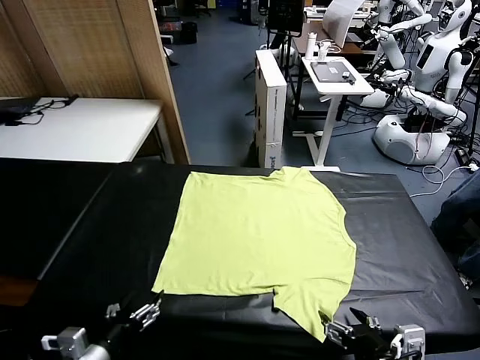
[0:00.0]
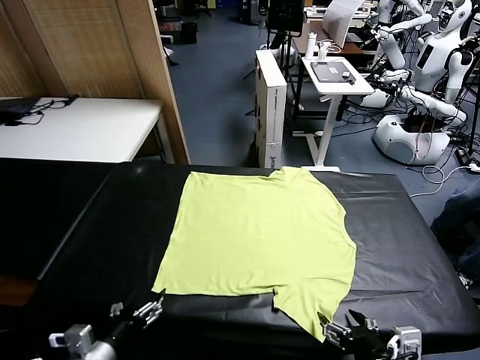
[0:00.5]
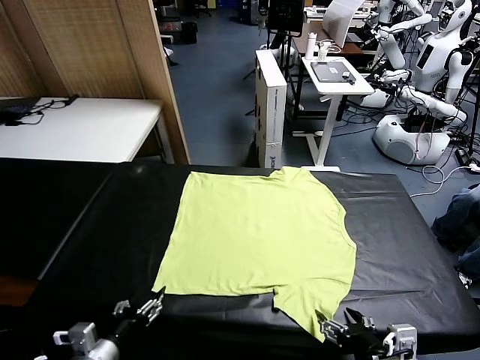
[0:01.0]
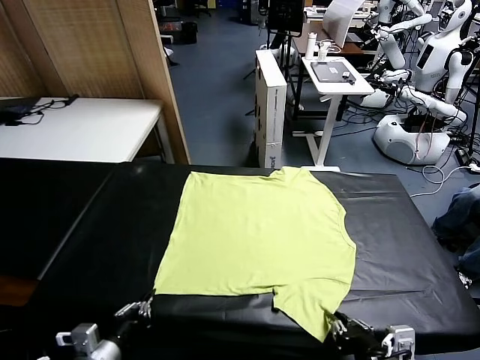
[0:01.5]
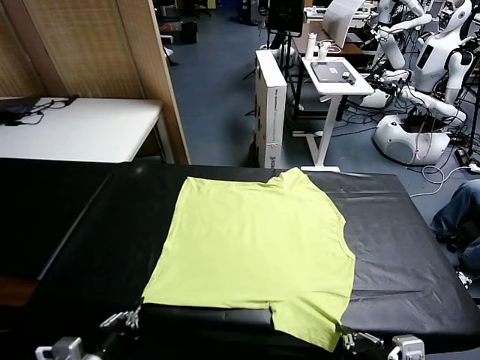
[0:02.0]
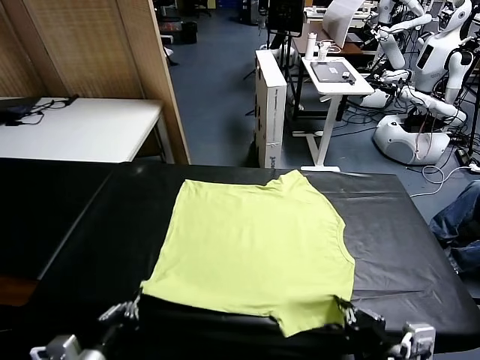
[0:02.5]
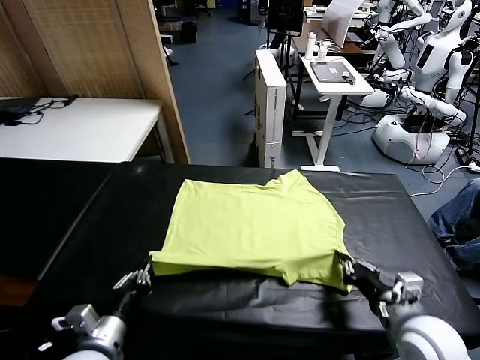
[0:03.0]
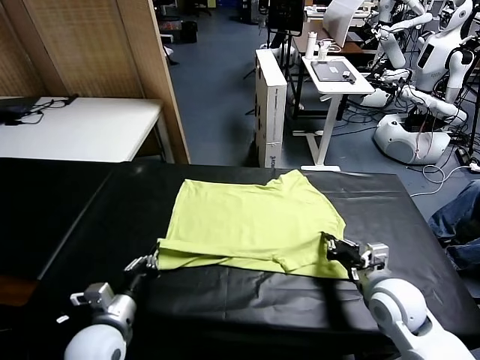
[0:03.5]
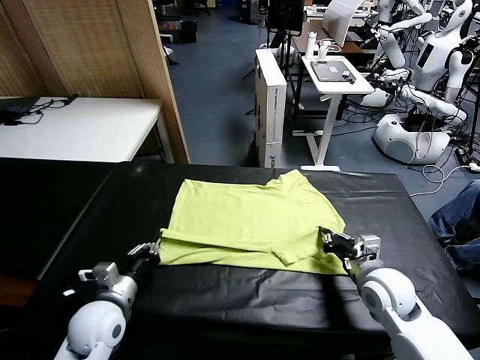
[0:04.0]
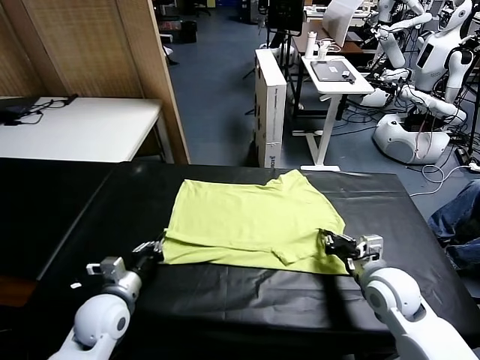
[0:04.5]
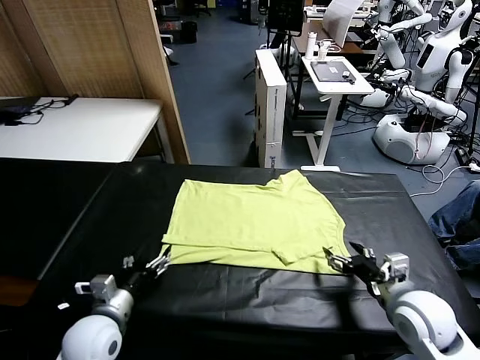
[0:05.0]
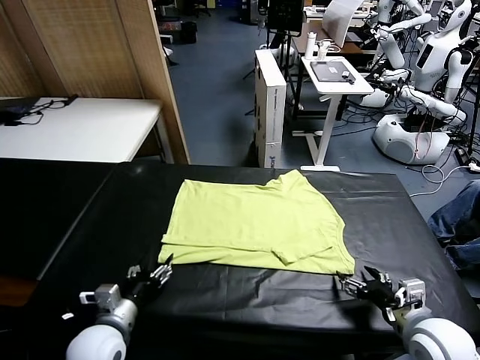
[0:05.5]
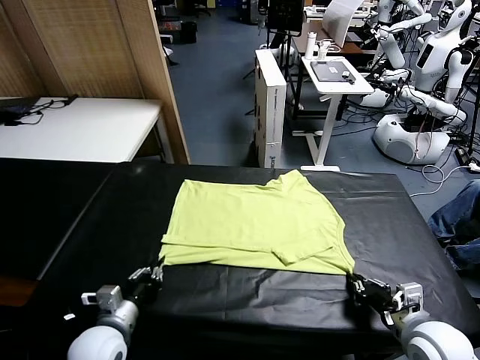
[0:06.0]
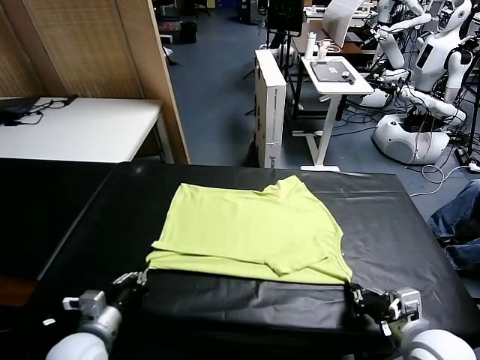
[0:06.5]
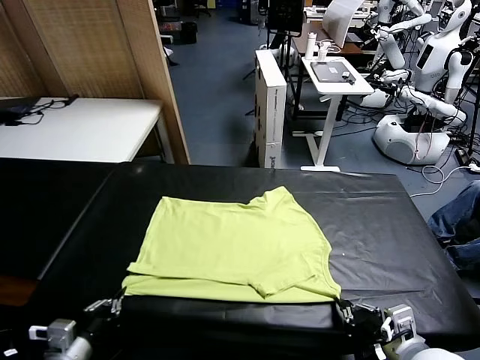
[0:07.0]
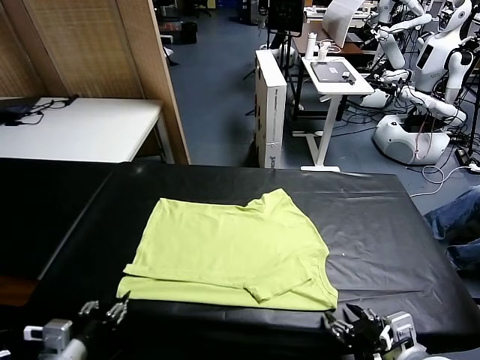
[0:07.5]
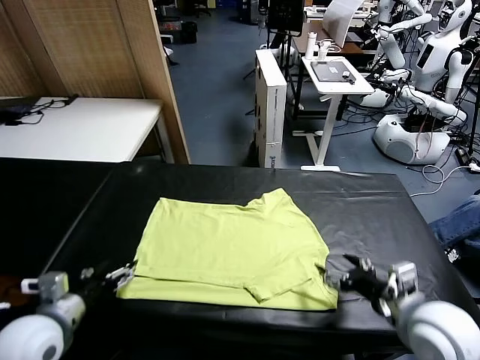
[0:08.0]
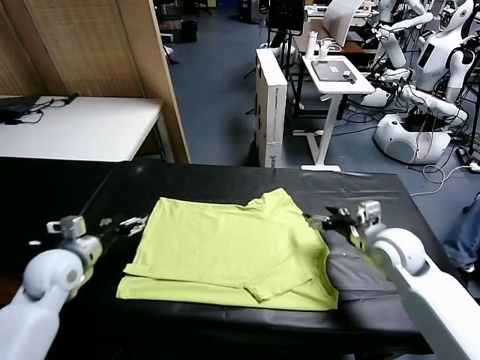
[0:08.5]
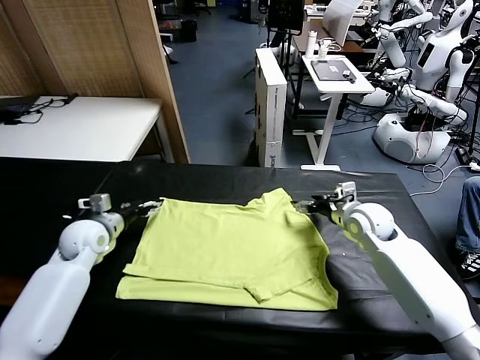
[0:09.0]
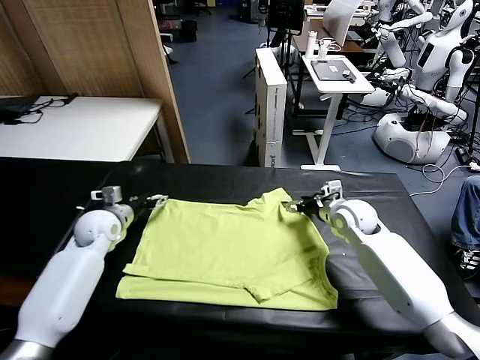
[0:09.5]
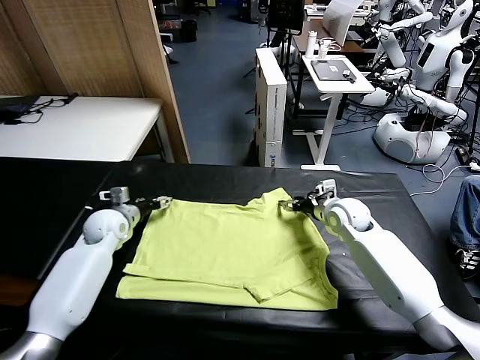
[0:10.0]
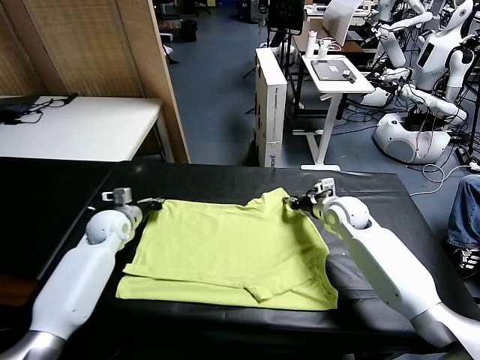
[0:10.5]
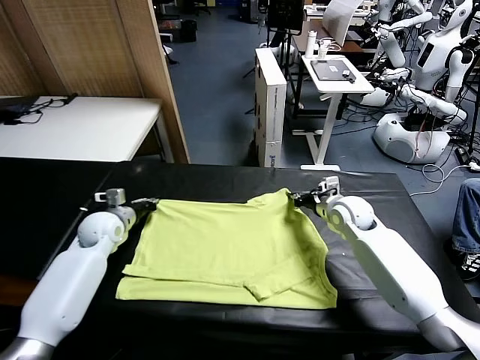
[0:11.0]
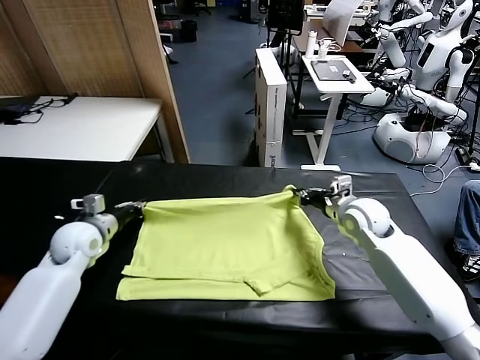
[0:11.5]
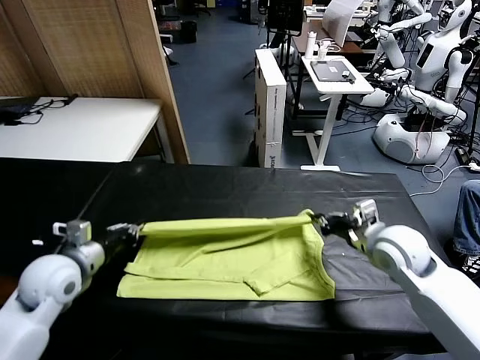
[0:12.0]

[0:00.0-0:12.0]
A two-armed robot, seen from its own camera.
Task of the whole recording: fold and organize the clothes.
Step, 0:00.0 to 0:01.5: use both grippers simultaneously to clamp the lower edge of the clothing fabric.
Step, 0:02.0 to 0:04.5: use both grippers to drag the lower edge of the fabric forward and fold it over the upper edge.
Step, 0:05.0 to 0:07.5: Drag the clothes downward with both gripper.
Step, 0:08.0 to 0:10.5: use both grippers simultaneously to clamp the upper edge of the clothing fabric.
0:02.0 to 0:04.0: The left gripper shifts roughly 15 cm forward. Meanwhile the right gripper is displaced forward by some 20 cm.
0:04.0 to 0:06.0: The right gripper moves backward, approximately 10 cm, and opens, then closes again. The left gripper opens, then closes once more.
0:06.0 to 0:08.0: The left gripper travels upward and to the left by approximately 10 cm, and opens its fingers, while the right gripper heads forward and upward, covering some 10 cm, and opens its fingers.
0:08.0 to 0:10.0: The two grippers go about 25 cm forward.
0:10.0 to 0:12.0: The left gripper is displaced backward and upward by approximately 15 cm, and closes its fingers. Meanwhile the right gripper shifts roughly 15 cm backward, and closes its fingers.

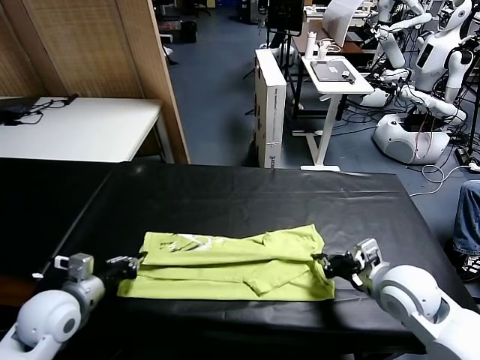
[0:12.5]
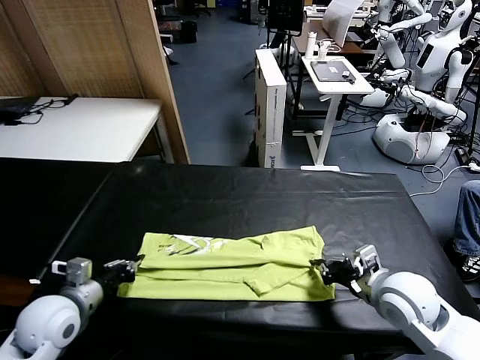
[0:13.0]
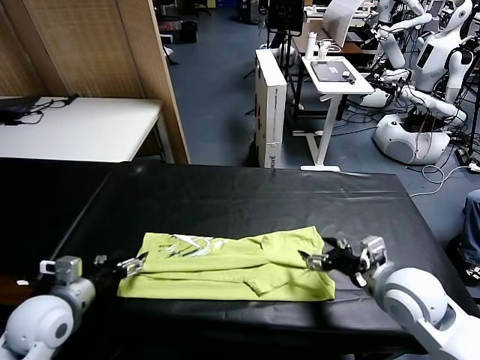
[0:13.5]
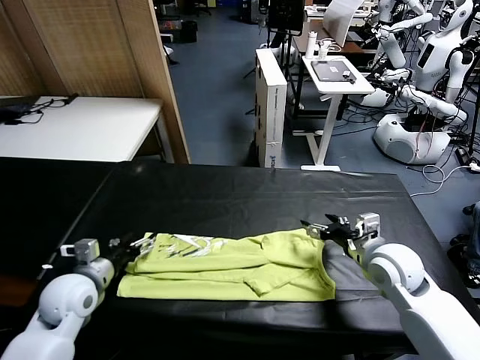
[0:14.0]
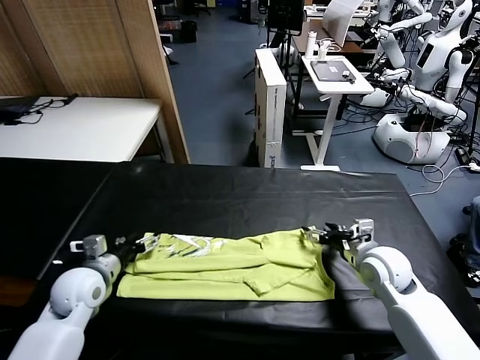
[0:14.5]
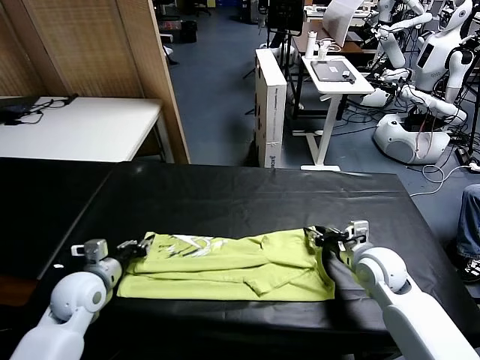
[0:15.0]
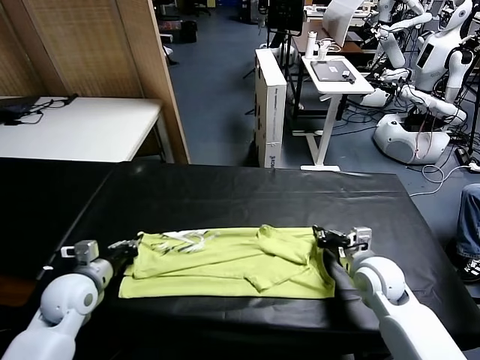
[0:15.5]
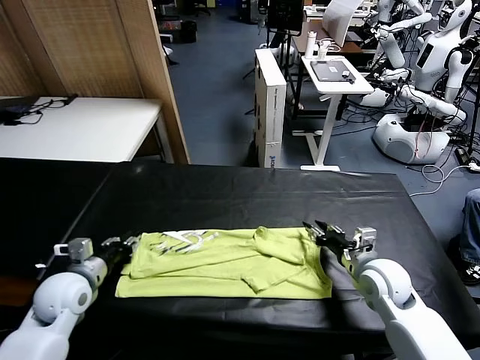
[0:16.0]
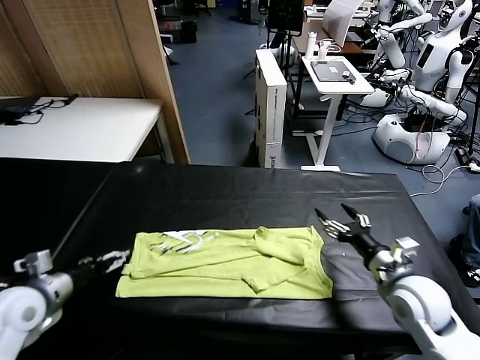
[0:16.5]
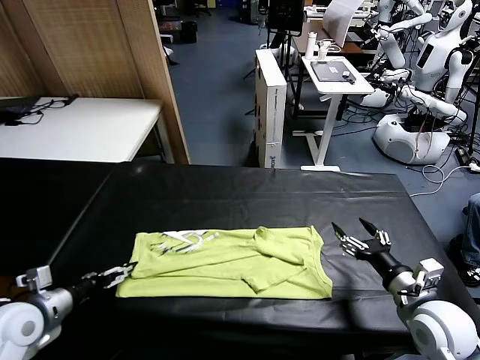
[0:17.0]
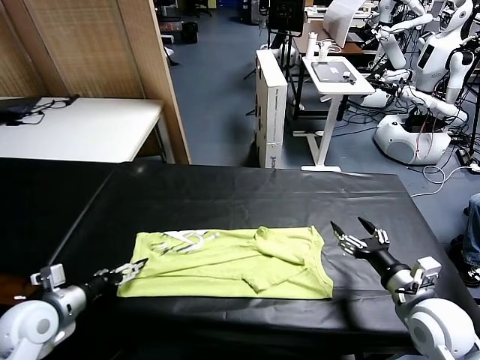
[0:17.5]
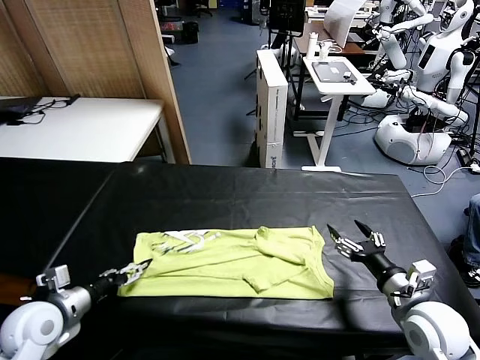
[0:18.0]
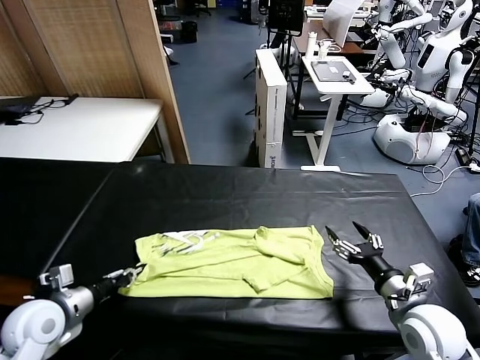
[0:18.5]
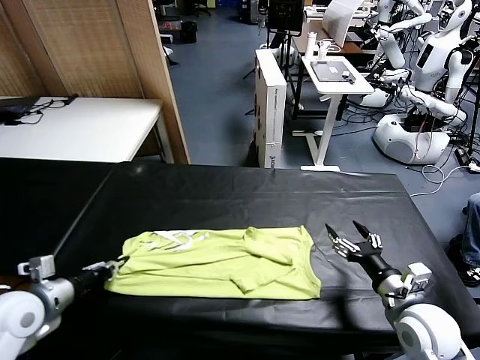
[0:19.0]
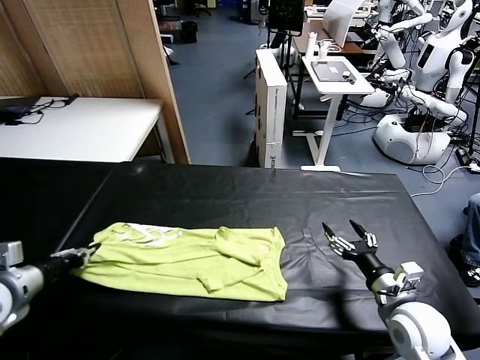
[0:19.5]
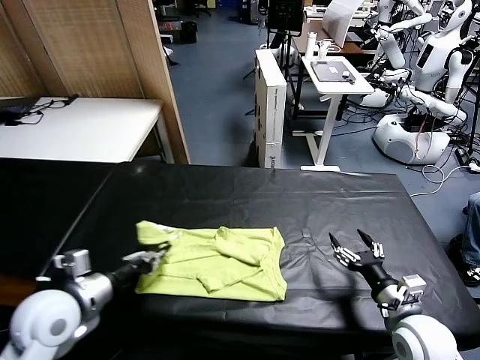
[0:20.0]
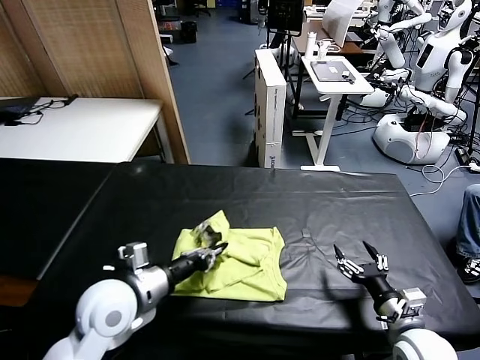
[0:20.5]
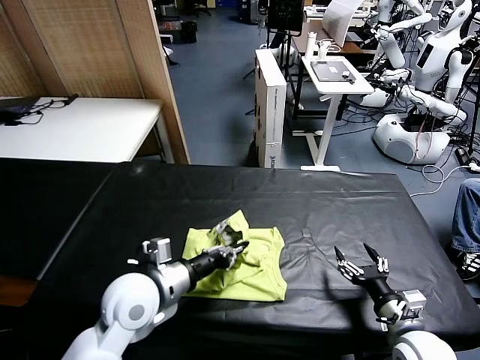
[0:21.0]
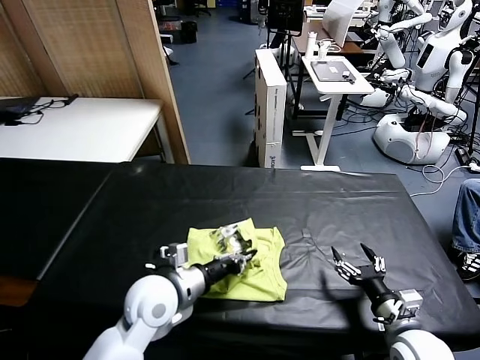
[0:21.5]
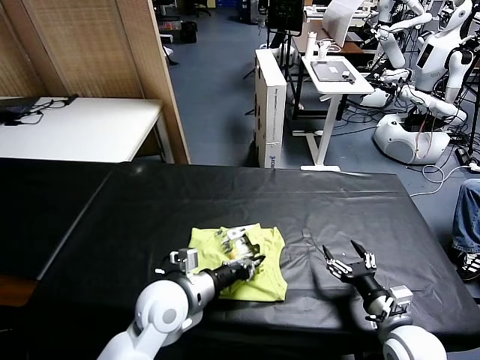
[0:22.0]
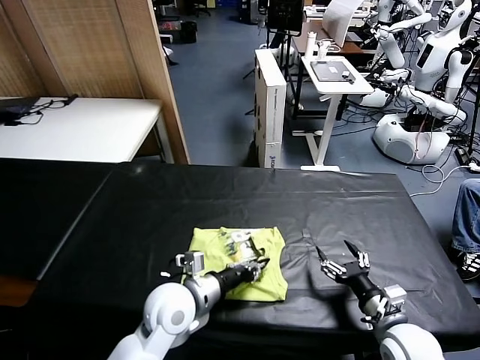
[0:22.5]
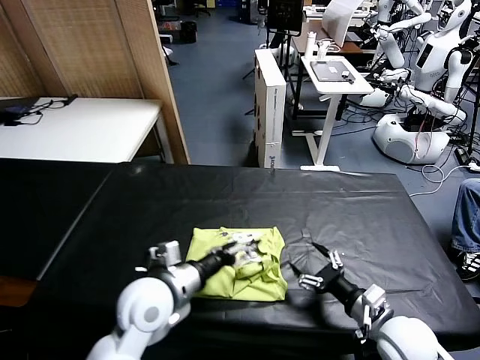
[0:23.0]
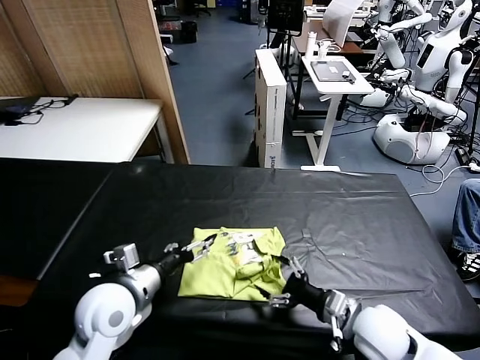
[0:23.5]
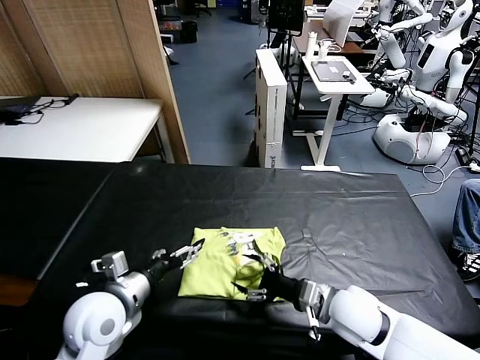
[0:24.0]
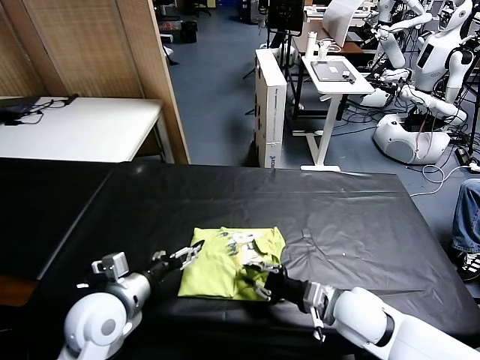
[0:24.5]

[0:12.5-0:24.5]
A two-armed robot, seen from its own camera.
Task of the whole recording: fold and organize the clothes.
Step, 0:13.5 to 0:18.5: use the left gripper to clamp the left edge of the fabric.
Step, 0:19.0 to 0:22.5: use the left gripper to drag the left edge of the fabric to the left and folds it over the right edge.
0:12.5 to 0:14.5: The grippers both shift forward by about 5 cm. The right gripper opens; the left gripper opens.
0:14.5 to 0:16.5: The right gripper goes approximately 10 cm backward, and closes and opens again. The left gripper moves to the left, roughly 5 cm, and closes, then opens again.
0:16.5 to 0:18.5: The left gripper closes.
0:18.5 to 0:20.5: The left gripper travels to the right by approximately 15 cm. The right gripper moves roughly 5 cm.
0:20.5 to 0:22.5: The left gripper heads to the right and downward, covering approximately 10 cm.
0:22.5 to 0:24.5: The left gripper is displaced to the left by approximately 10 cm, and opens, while the right gripper goes about 10 cm to the left and forward, and closes.

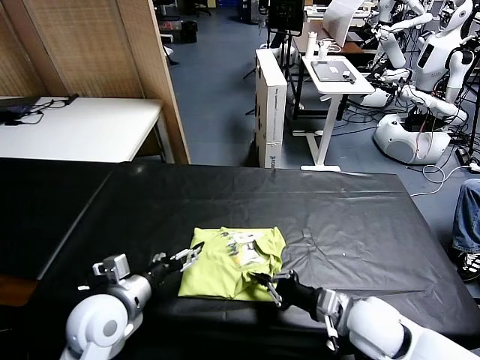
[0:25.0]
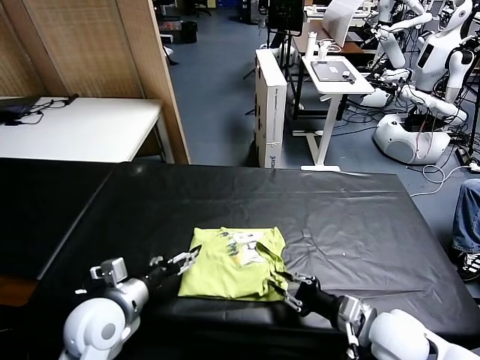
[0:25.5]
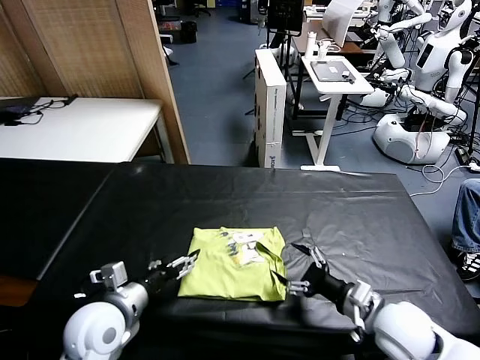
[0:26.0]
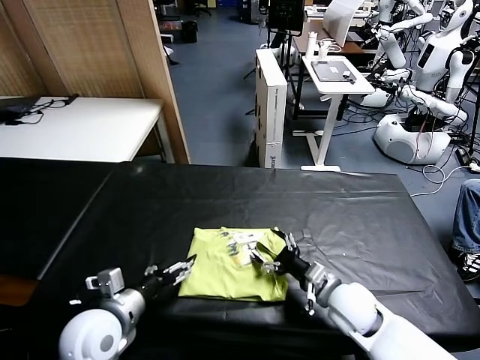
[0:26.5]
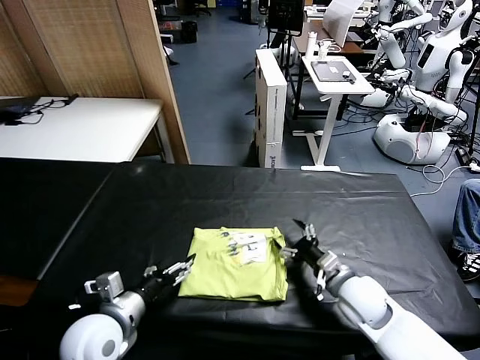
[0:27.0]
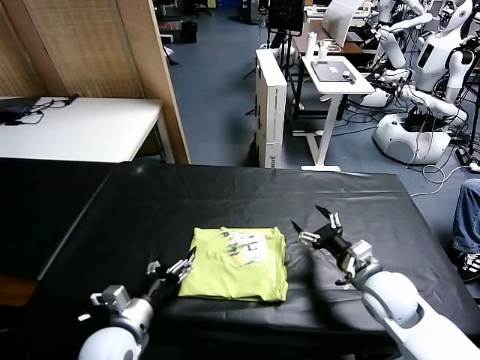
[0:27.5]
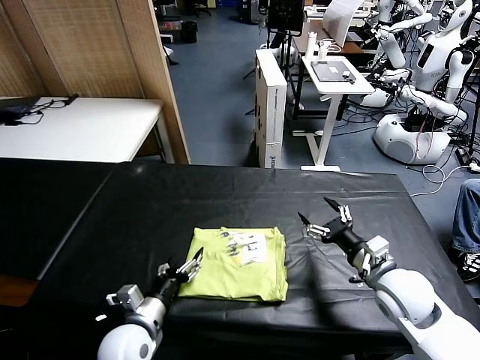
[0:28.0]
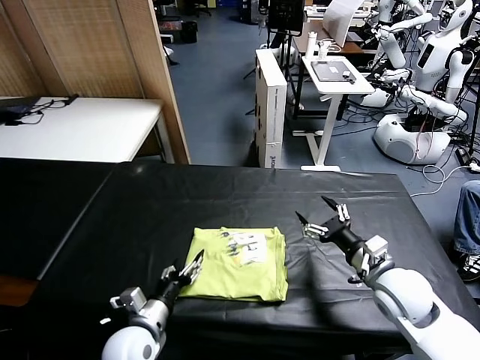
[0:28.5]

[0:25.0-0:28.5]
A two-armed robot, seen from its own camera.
Task of the whole recording: fold and organize the clothes.
0:25.0 to 0:27.0: The right gripper moves forward, roughly 5 cm, and opens up.
0:27.0 to 0:28.5: The right gripper goes some 5 cm upward, while the left gripper heads downward, covering roughly 10 cm.
